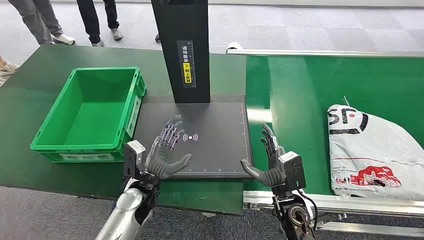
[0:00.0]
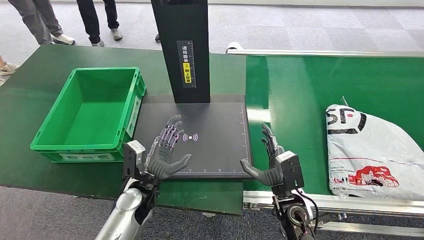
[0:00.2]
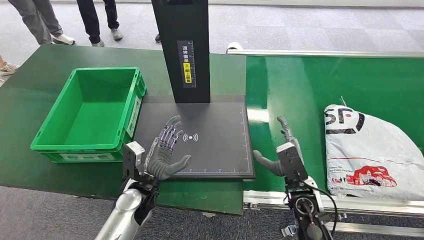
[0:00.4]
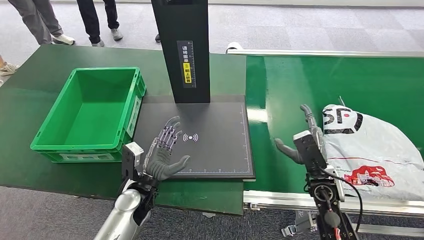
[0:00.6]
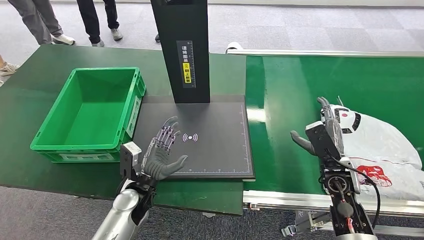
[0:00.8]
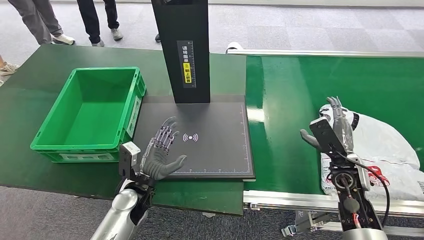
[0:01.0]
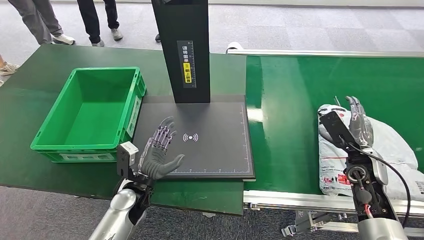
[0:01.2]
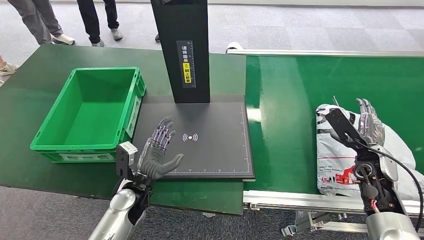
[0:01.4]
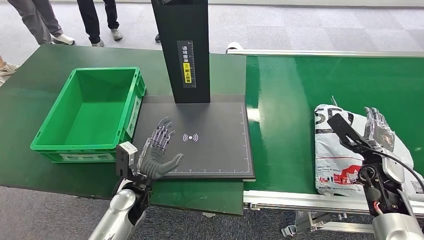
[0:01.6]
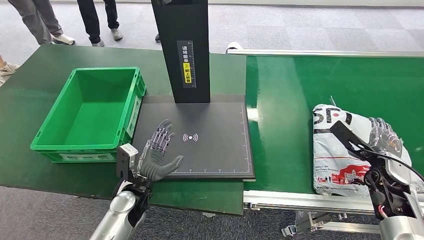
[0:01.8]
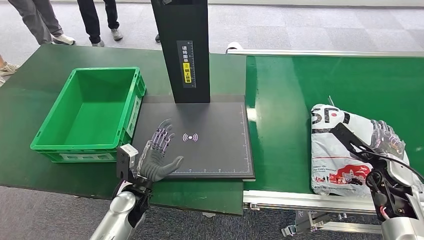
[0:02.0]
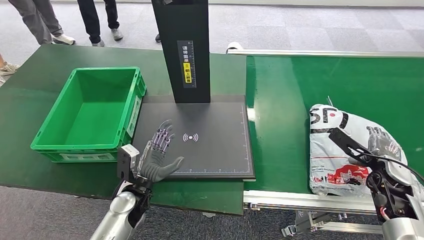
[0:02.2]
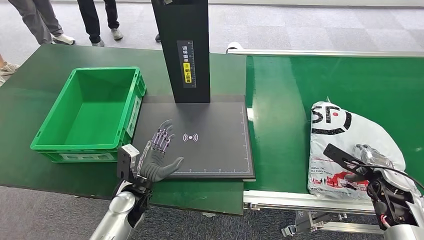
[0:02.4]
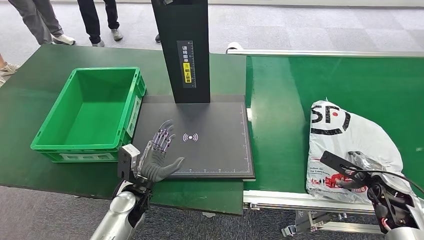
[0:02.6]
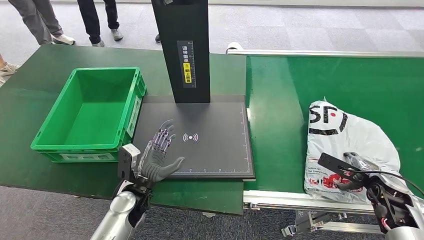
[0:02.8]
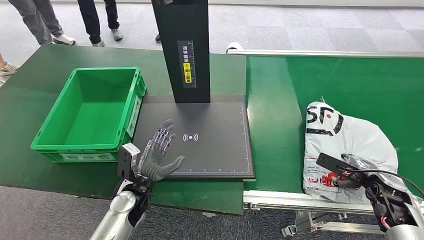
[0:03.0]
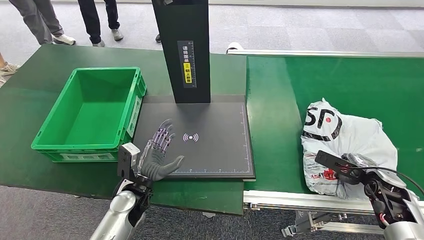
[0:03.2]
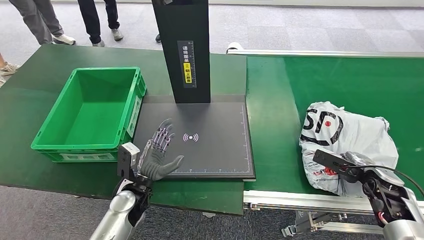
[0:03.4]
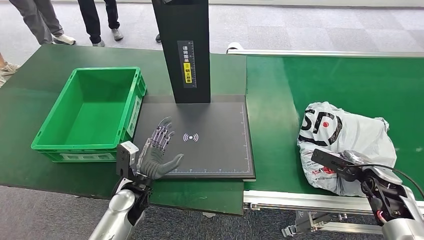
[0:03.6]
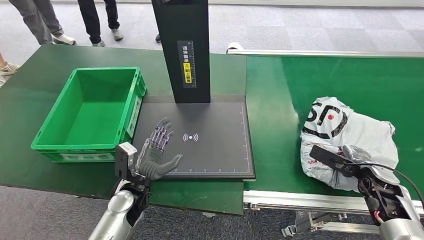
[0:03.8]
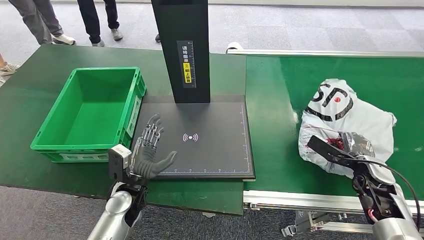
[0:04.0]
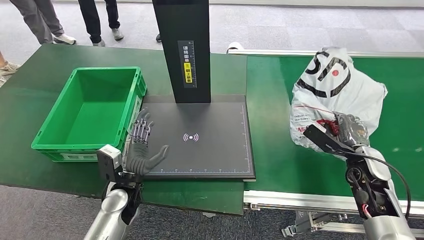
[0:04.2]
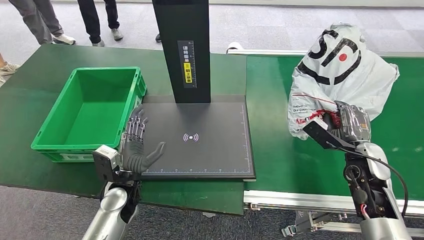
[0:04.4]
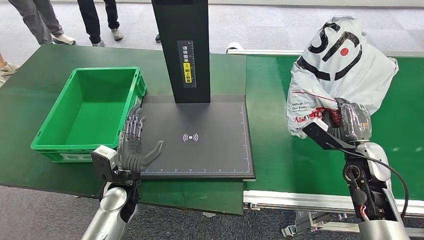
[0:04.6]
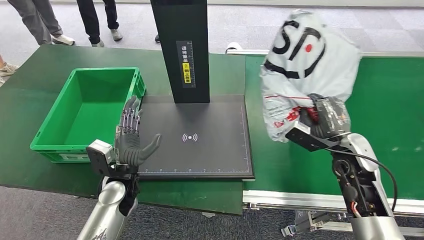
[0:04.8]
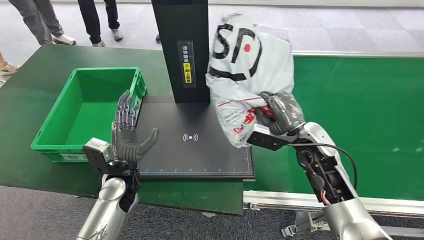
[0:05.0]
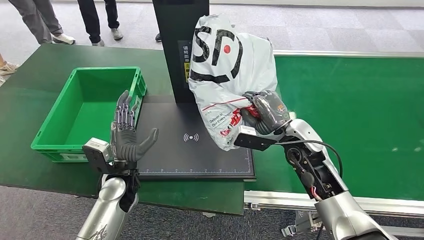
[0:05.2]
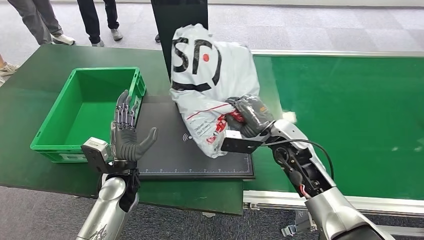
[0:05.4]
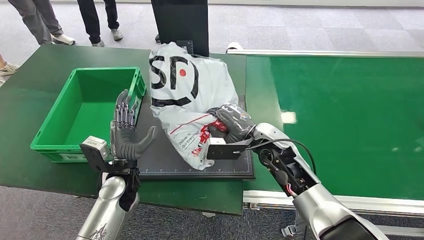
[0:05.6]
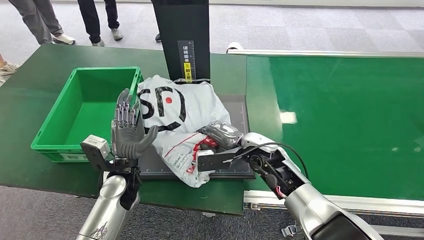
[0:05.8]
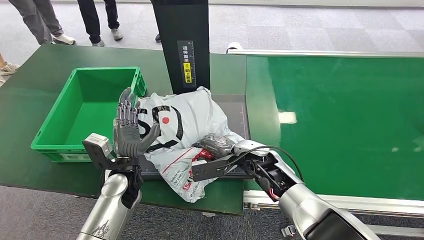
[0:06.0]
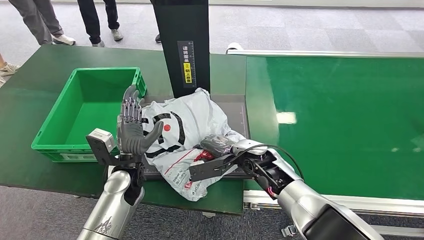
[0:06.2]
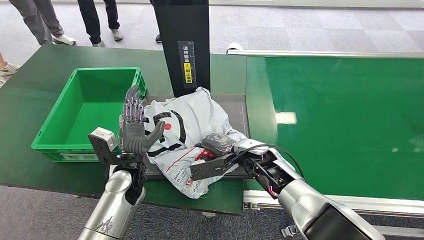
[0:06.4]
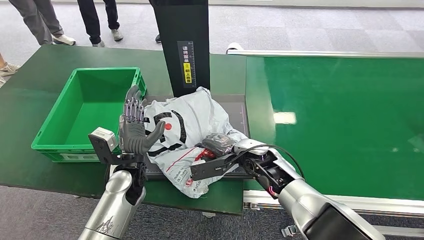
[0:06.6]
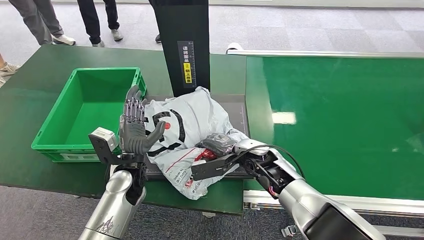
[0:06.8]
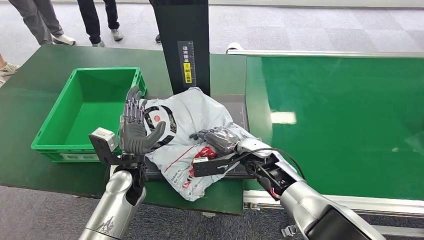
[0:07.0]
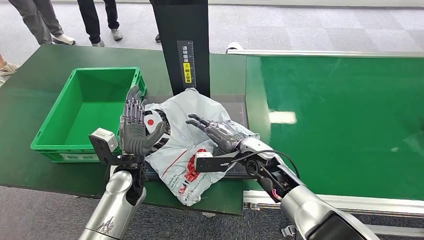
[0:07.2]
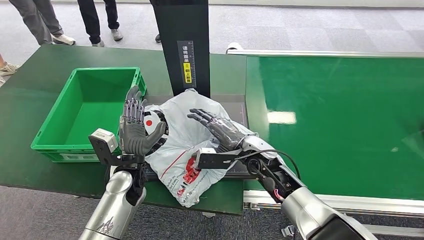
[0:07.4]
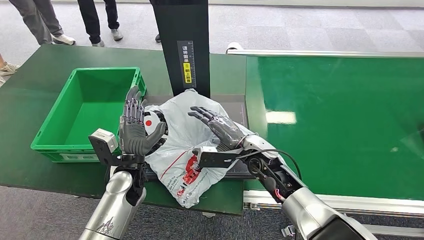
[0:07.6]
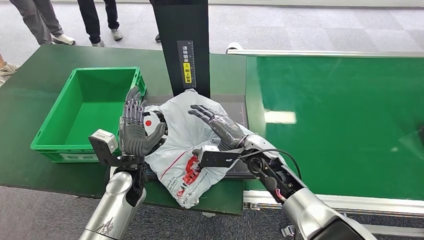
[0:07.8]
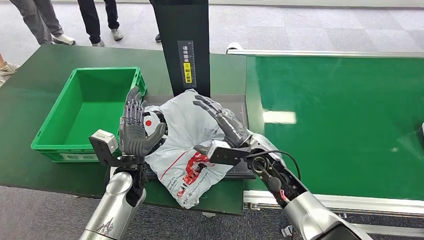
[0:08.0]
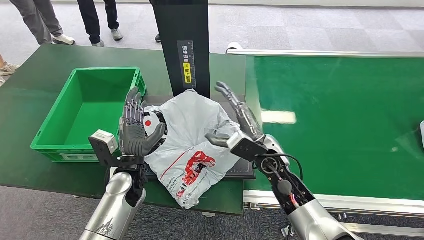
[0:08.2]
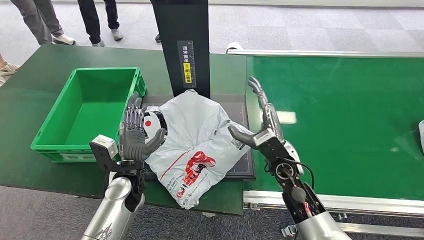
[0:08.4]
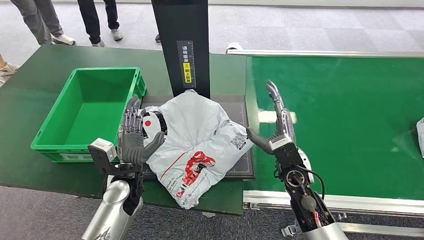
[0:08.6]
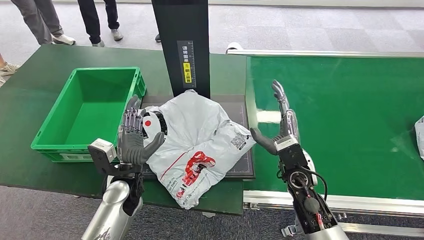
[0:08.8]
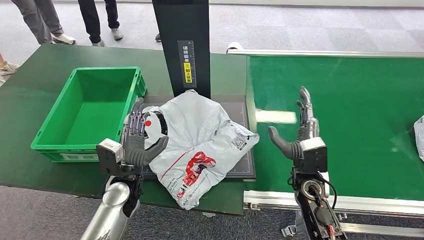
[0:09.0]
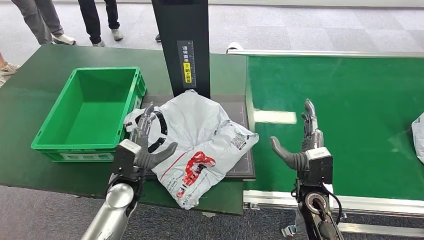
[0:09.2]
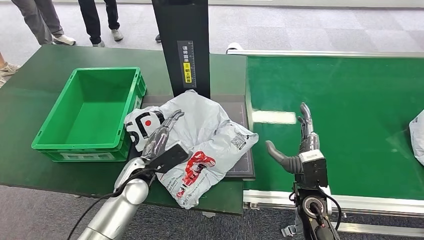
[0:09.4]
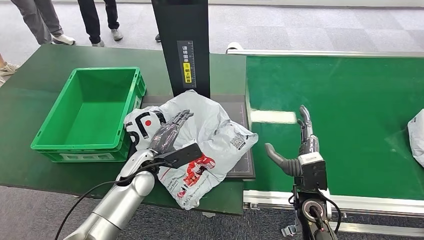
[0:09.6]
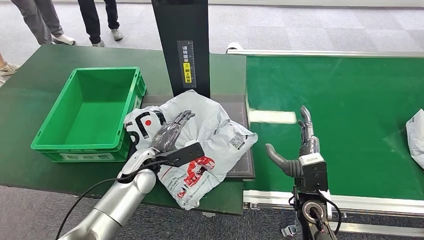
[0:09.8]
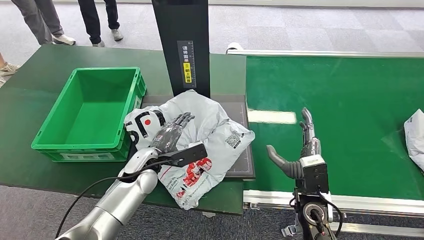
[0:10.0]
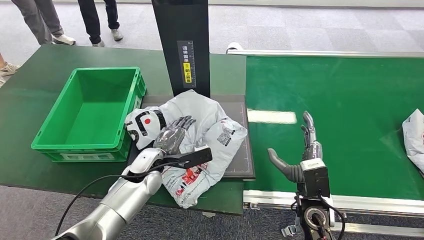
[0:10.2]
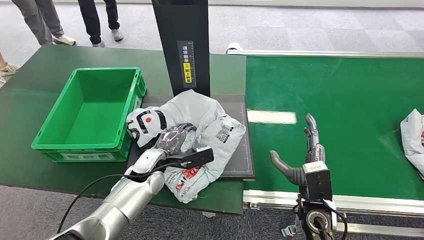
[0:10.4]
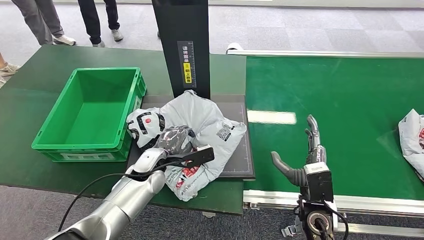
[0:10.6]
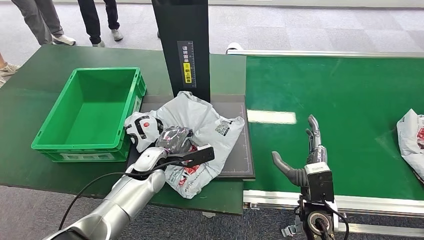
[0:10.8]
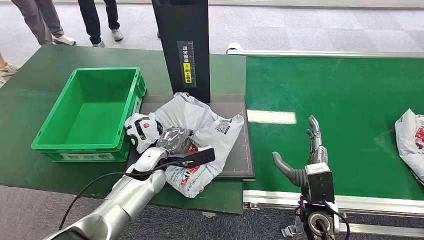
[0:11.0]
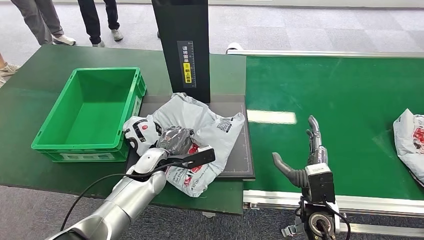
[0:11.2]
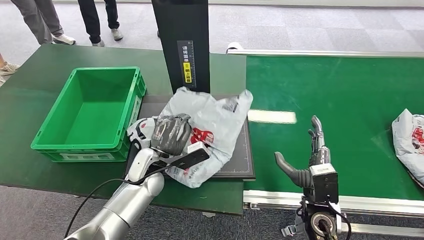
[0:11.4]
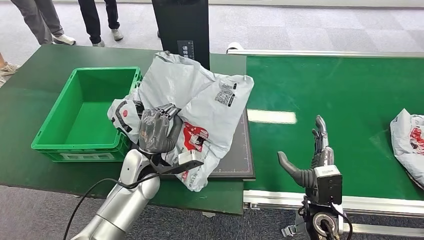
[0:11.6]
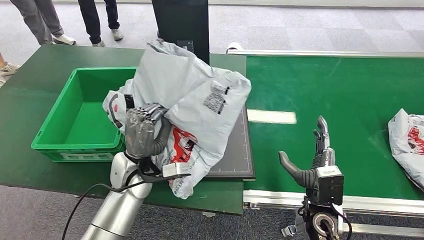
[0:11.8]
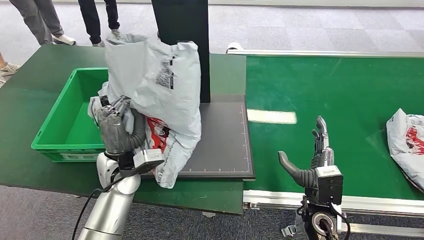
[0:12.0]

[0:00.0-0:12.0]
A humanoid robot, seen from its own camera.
Step, 0:00.0 to 0:05.4: Pick up the package from the conveyor belt.
Step, 0:05.8 to 0:08.8: Place the package onto the inbound machine.
0:01.6 to 0:03.0: The right hand moves downward, some 5 cm.
0:07.6 to 0:09.0: The right hand heads to the right and backward, covering approximately 10 cm.
0:09.0 to 0:10.4: The left hand moves forward, some 5 cm. The right hand travels backward by about 5 cm.

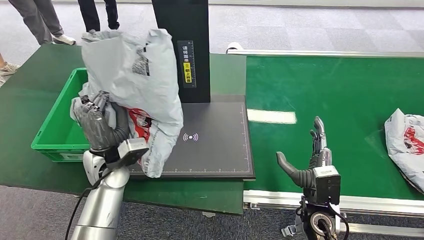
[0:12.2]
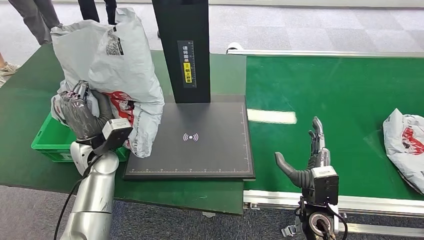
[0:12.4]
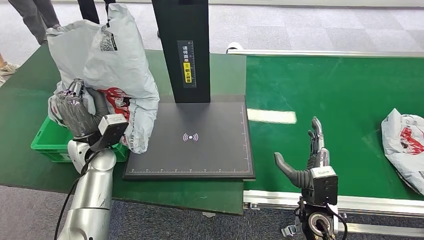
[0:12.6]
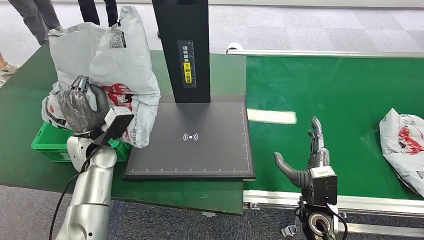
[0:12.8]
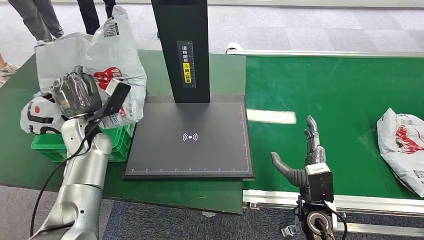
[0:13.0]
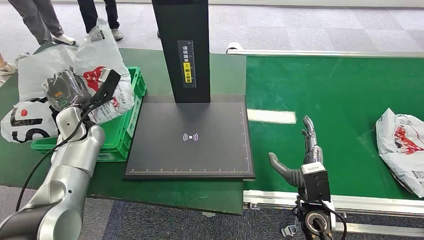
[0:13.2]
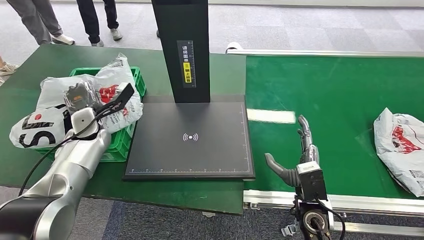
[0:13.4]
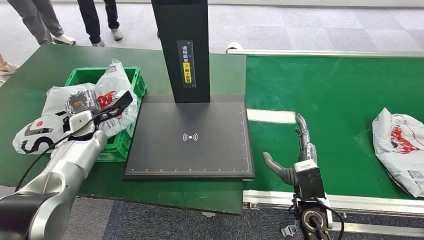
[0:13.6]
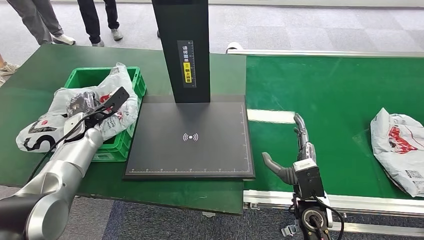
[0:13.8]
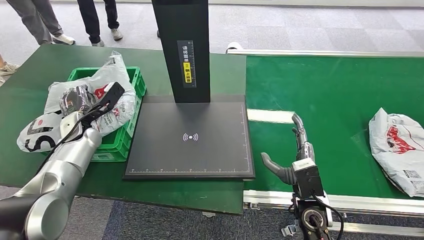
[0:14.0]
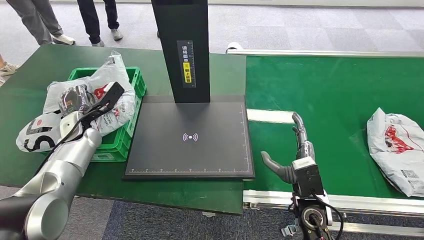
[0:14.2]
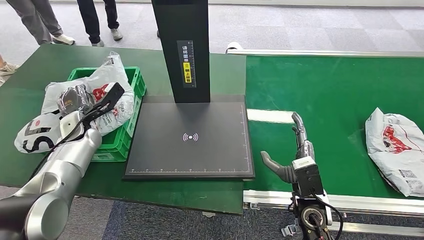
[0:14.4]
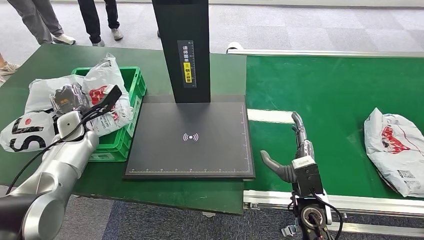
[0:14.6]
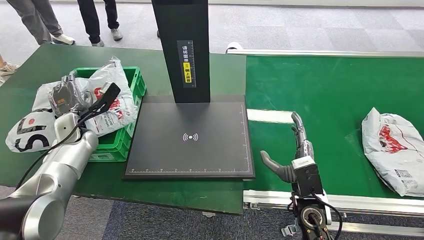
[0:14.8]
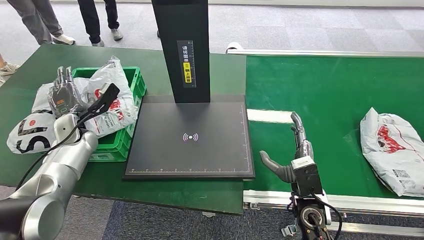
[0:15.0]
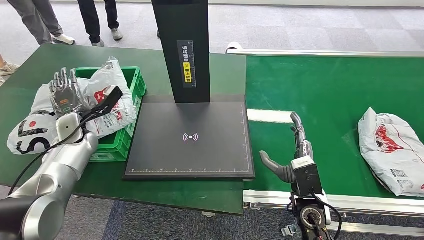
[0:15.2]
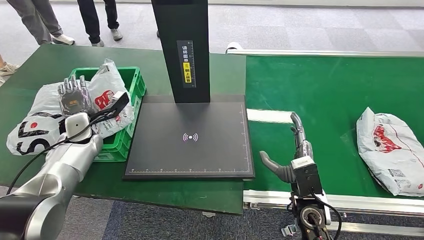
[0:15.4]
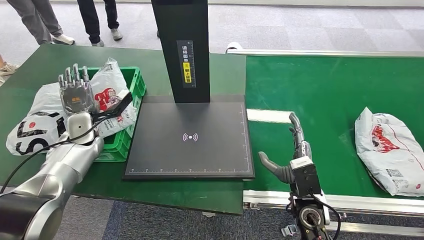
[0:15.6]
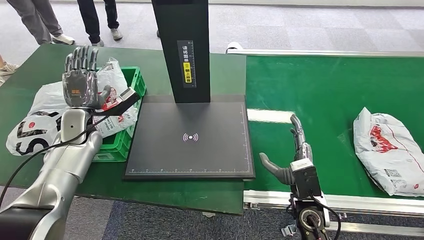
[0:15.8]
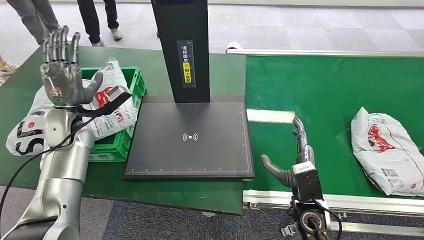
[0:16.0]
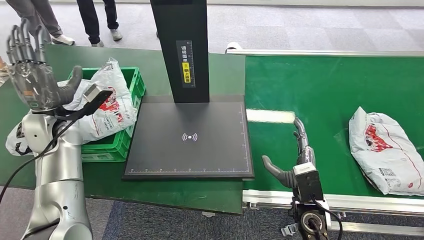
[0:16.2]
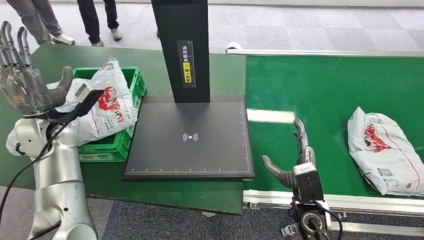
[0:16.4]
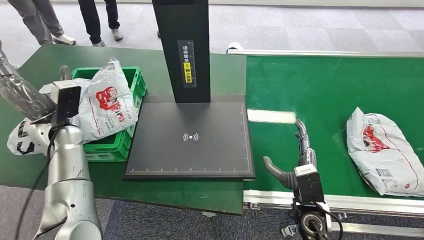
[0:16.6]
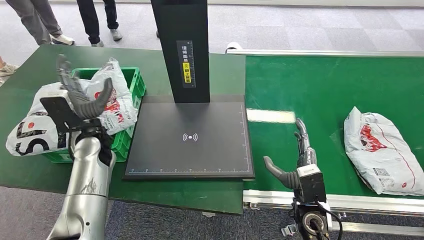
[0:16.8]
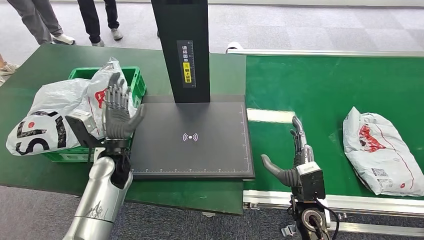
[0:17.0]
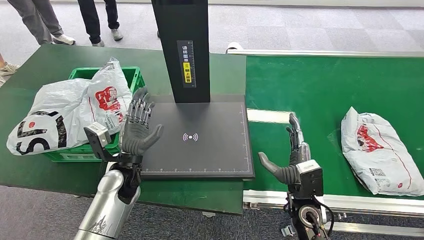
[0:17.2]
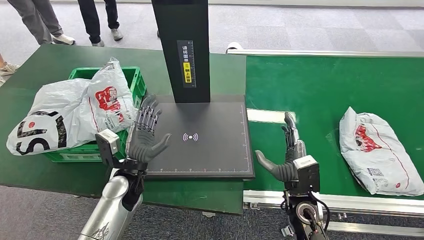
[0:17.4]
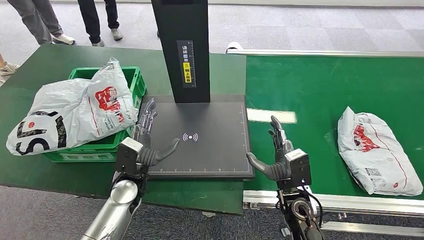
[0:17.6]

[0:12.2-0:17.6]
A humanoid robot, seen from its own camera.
Step, 0:12.6 to 0:17.6: Place the package into the parcel locker.
